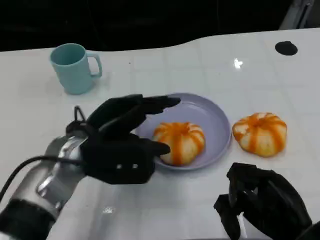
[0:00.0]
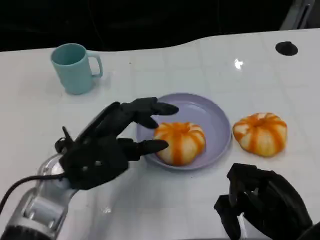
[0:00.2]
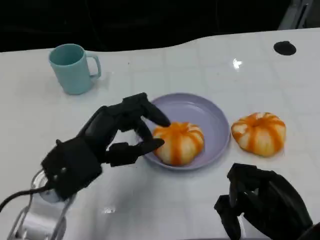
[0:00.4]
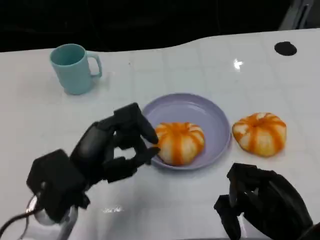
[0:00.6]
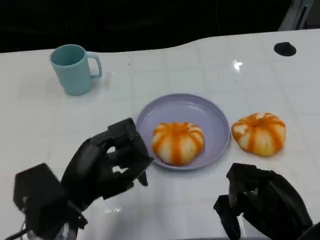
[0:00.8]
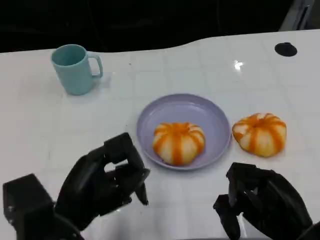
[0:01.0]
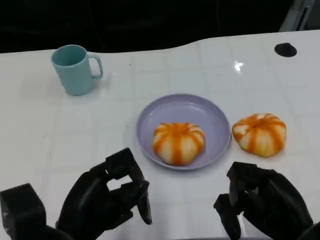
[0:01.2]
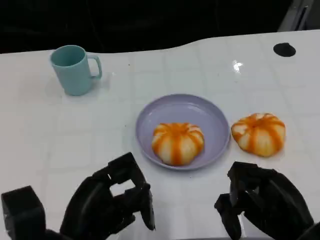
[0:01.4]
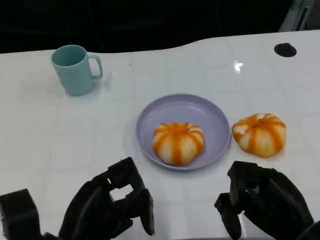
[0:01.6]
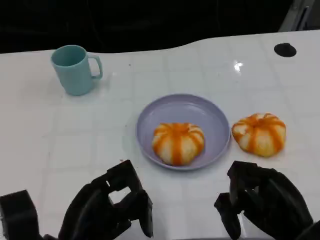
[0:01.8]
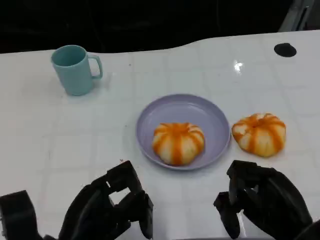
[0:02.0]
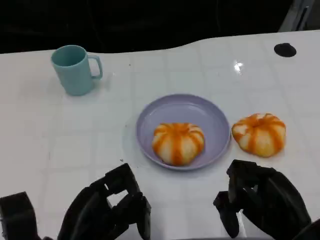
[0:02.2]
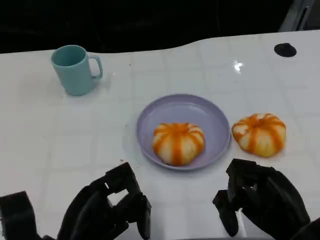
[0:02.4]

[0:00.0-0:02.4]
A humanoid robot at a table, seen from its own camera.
Task of the whole recording: Grasp the bread from the table and place it into the plate.
0:00.0 to 0:01.2: The left hand travels backward by about 10 cm.
0:01.2 to 0:02.4: The hands stay close to where they were, moving slightly.

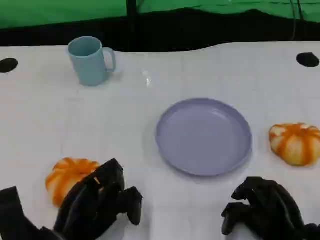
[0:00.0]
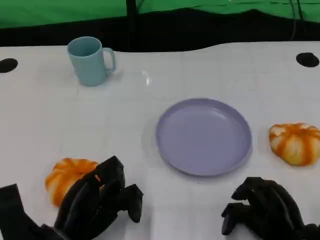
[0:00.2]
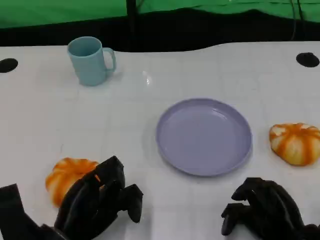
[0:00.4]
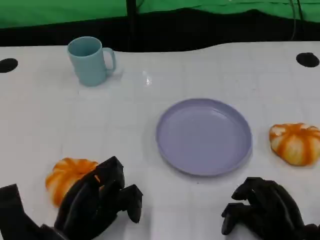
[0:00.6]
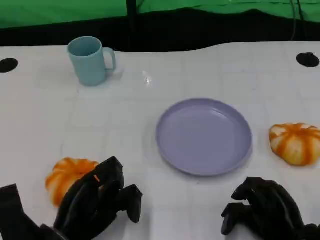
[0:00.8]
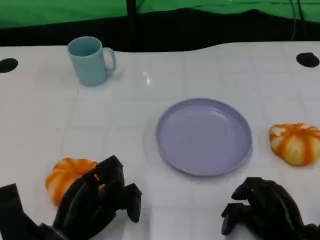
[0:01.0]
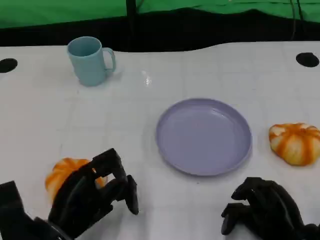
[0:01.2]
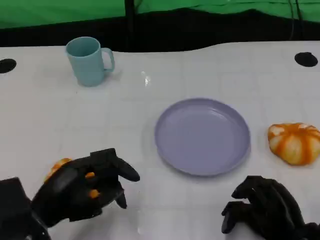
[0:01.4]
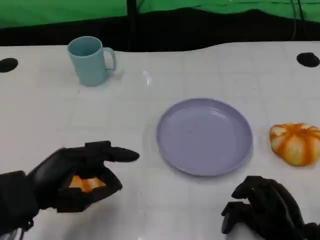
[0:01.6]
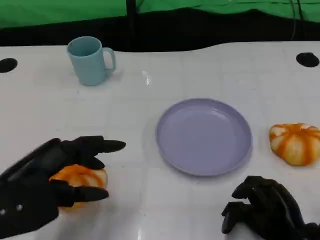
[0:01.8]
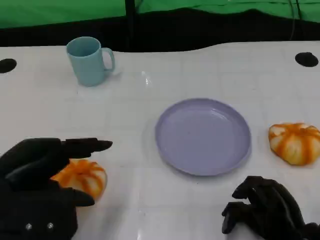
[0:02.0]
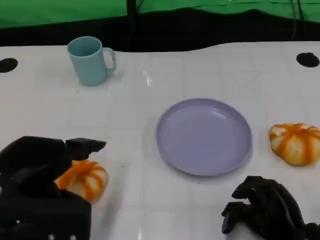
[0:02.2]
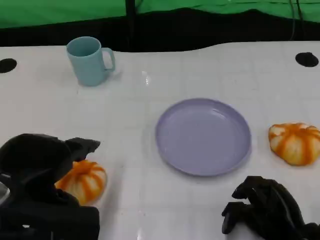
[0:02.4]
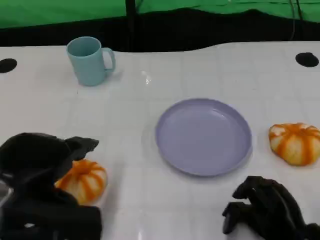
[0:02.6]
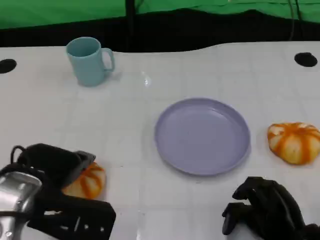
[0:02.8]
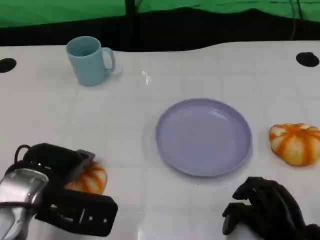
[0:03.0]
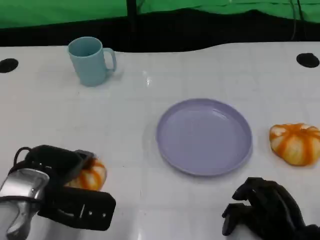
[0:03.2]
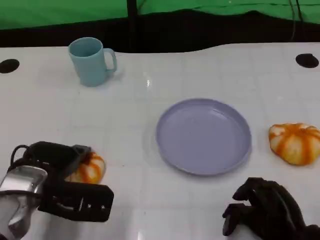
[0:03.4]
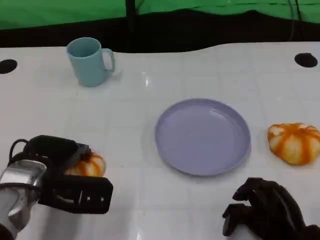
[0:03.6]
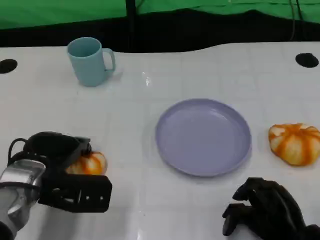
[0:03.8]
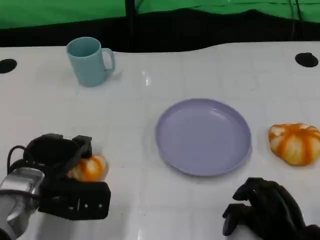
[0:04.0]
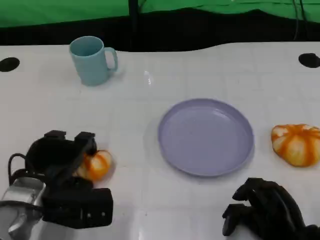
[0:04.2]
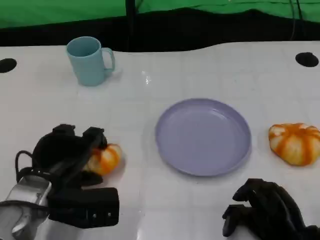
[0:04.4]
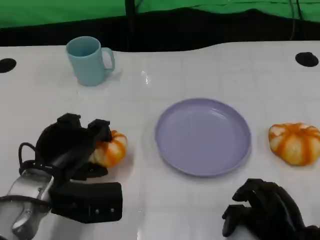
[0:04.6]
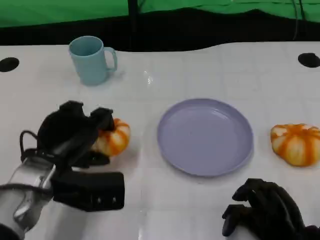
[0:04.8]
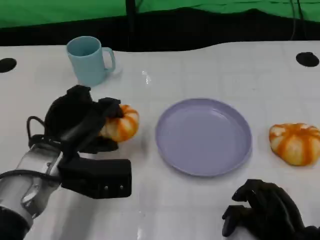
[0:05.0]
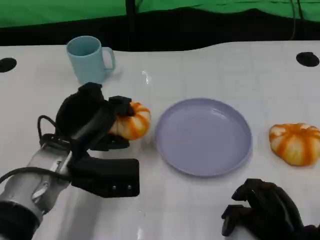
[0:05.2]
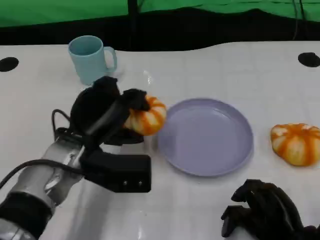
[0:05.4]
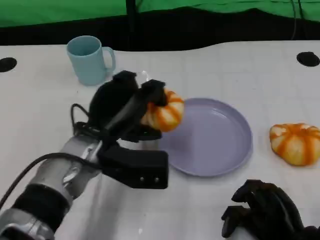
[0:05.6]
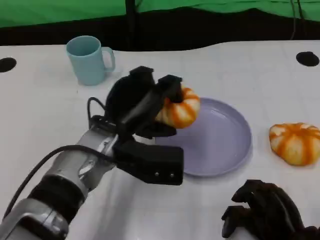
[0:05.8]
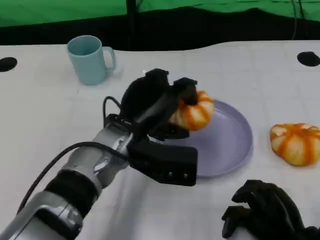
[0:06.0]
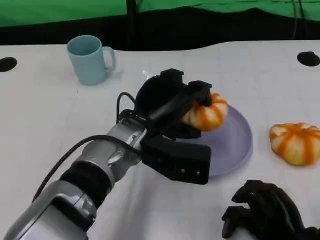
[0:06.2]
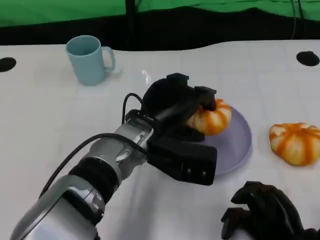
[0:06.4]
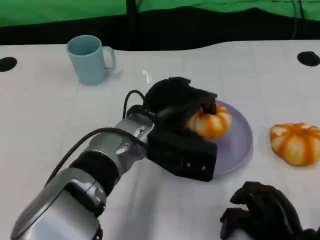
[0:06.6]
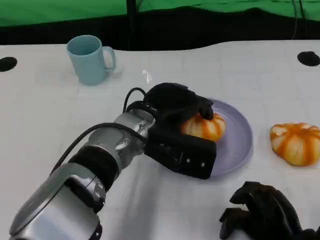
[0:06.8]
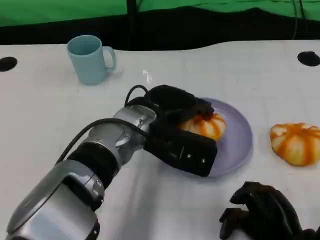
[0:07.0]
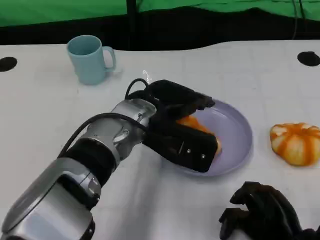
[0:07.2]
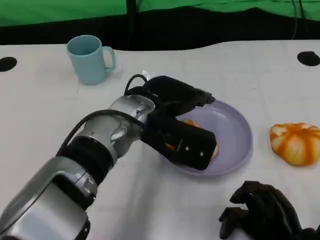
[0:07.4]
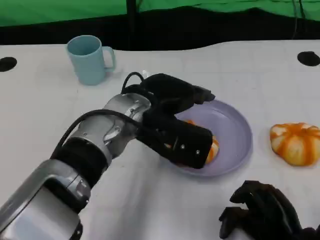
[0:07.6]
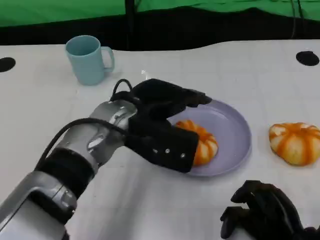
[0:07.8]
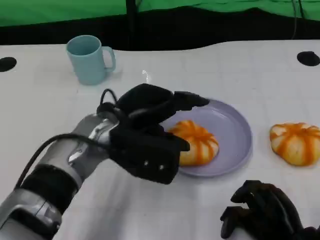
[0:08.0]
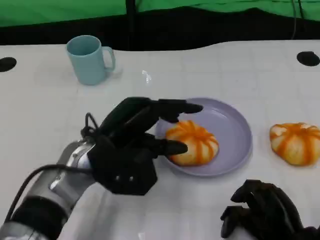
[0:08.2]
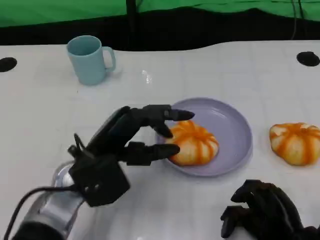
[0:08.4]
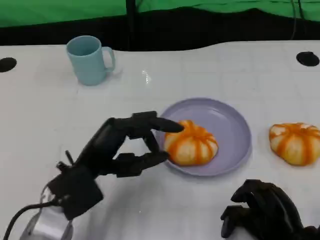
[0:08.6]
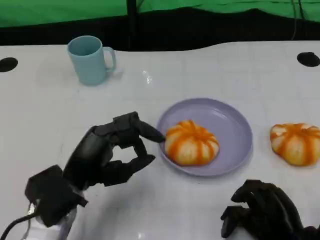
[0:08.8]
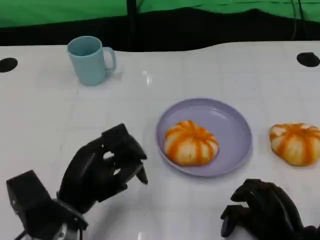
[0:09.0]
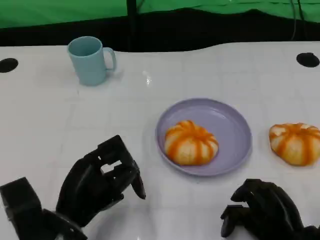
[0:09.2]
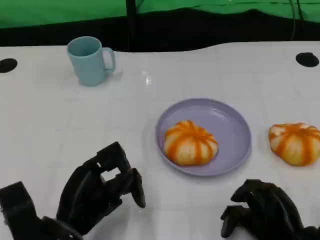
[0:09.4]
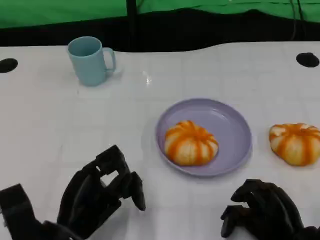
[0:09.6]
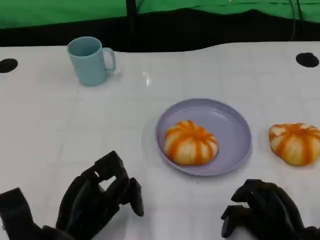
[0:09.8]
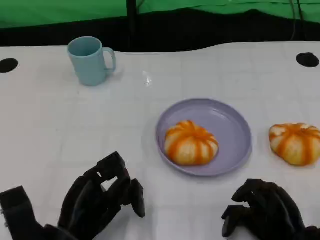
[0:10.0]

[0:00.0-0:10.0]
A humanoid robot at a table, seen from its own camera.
Task of the whole recording: Grasp the bread from the table and place it into the plate.
0:00.0 to 0:01.4: The left hand travels upward by some 5 cm.
0:02.8 to 0:04.2: The left hand travels downward by about 5 cm.
0:04.2 to 0:05.8: The left hand travels to the right and upward by about 15 cm.
0:05.8 to 0:07.2: The left hand ends up roughly 5 cm from where it was.
0:07.2 to 0:08.6: The left hand is displaced to the left, backward and downward by some 15 cm.
0:08.6 to 0:10.0: The left hand moves backward, some 5 cm.

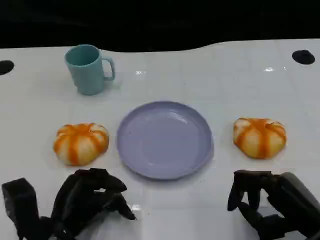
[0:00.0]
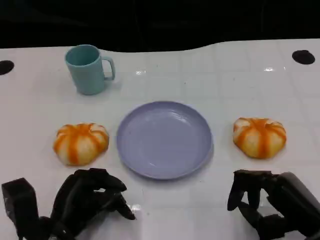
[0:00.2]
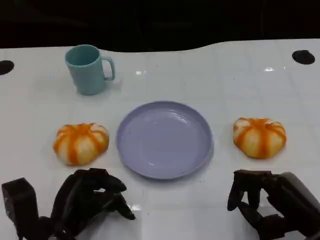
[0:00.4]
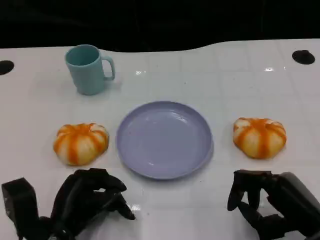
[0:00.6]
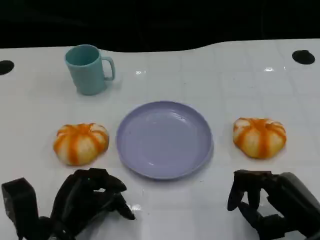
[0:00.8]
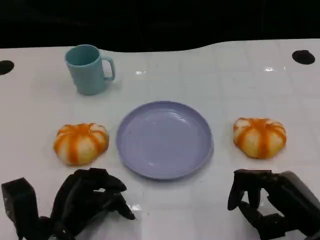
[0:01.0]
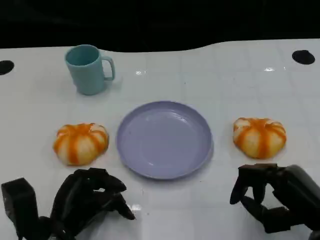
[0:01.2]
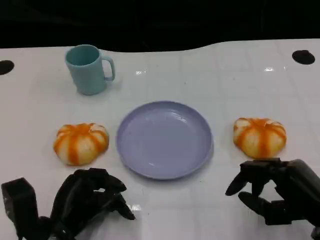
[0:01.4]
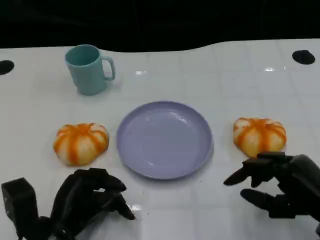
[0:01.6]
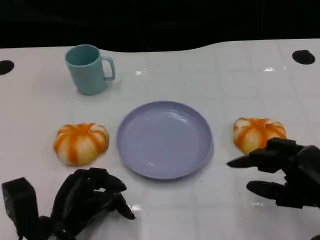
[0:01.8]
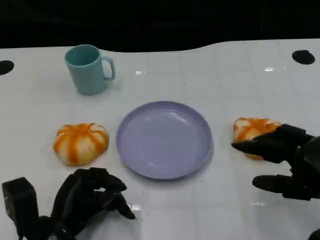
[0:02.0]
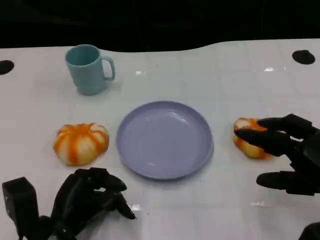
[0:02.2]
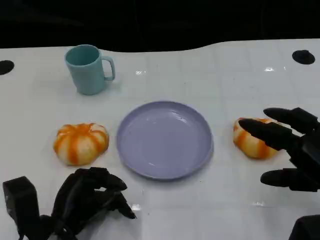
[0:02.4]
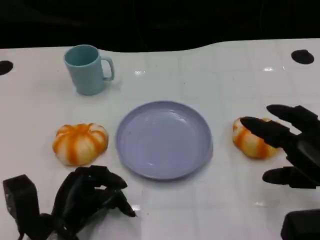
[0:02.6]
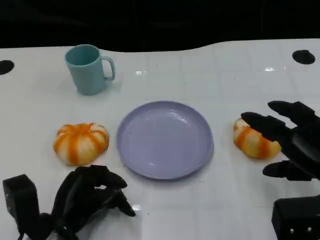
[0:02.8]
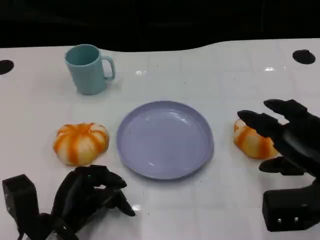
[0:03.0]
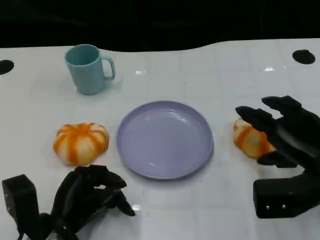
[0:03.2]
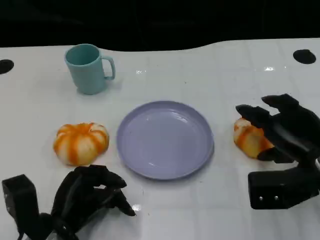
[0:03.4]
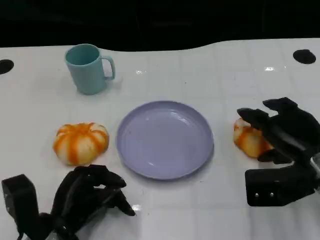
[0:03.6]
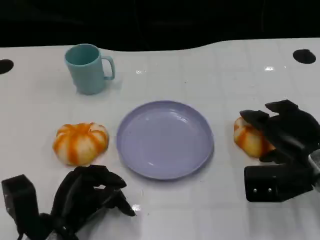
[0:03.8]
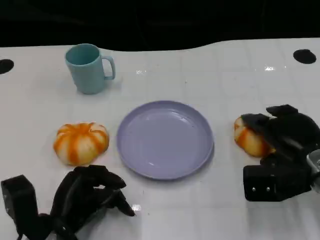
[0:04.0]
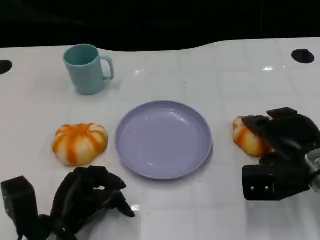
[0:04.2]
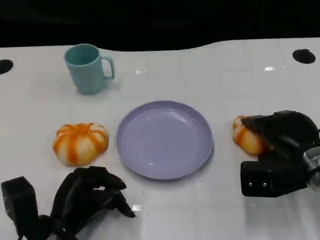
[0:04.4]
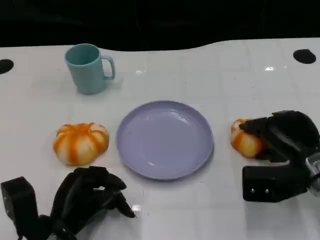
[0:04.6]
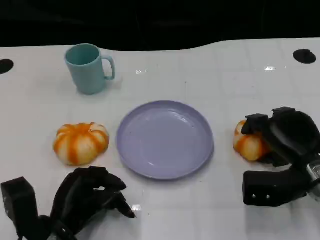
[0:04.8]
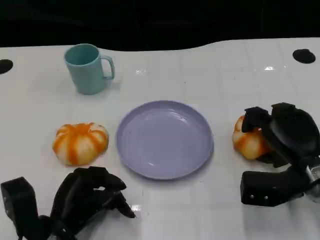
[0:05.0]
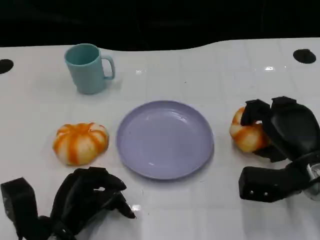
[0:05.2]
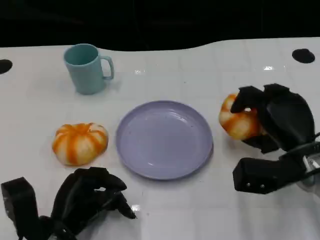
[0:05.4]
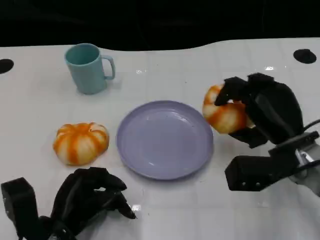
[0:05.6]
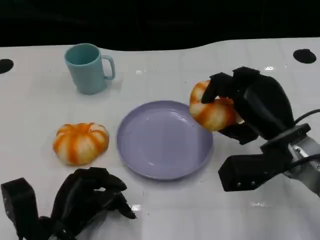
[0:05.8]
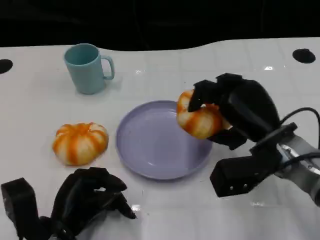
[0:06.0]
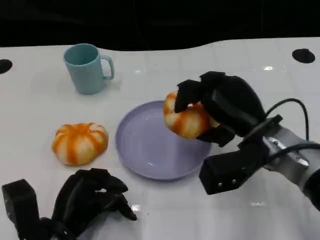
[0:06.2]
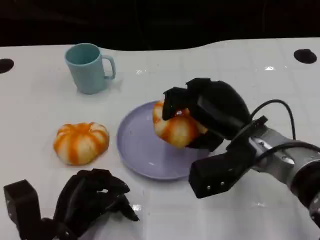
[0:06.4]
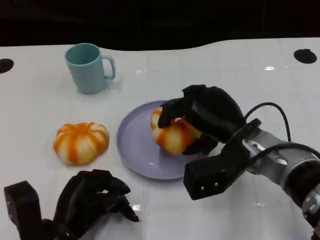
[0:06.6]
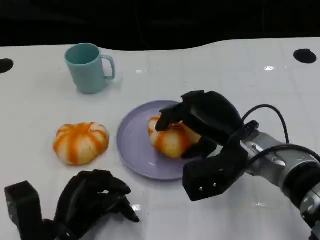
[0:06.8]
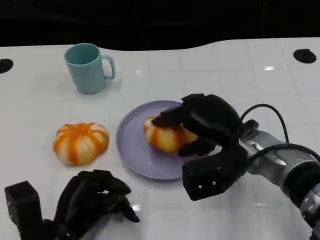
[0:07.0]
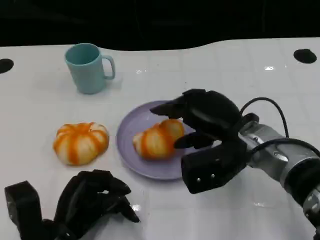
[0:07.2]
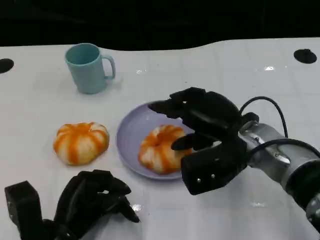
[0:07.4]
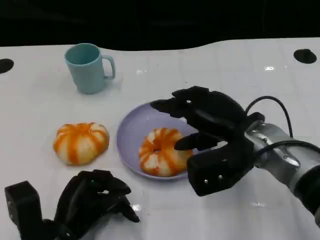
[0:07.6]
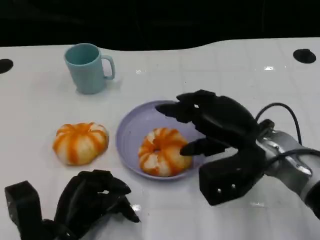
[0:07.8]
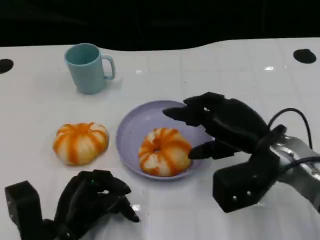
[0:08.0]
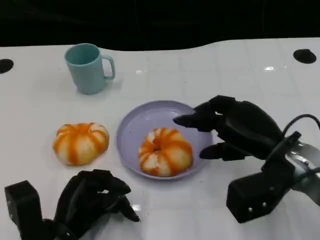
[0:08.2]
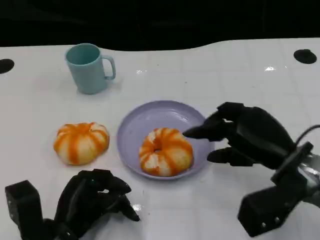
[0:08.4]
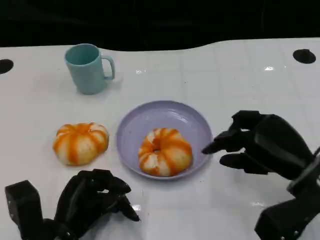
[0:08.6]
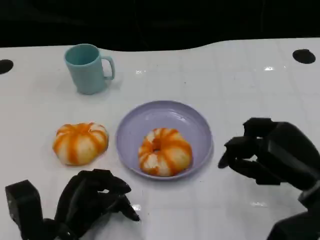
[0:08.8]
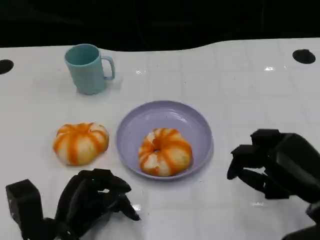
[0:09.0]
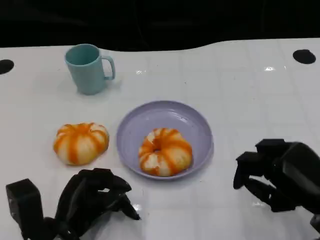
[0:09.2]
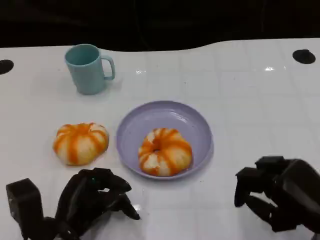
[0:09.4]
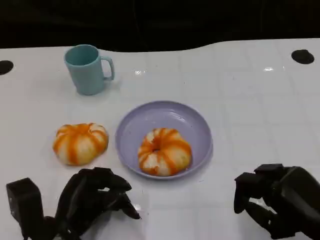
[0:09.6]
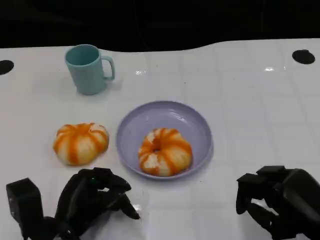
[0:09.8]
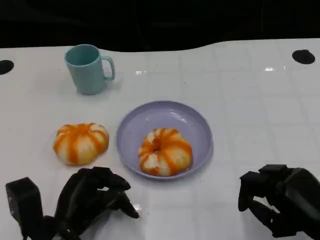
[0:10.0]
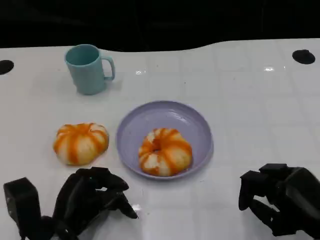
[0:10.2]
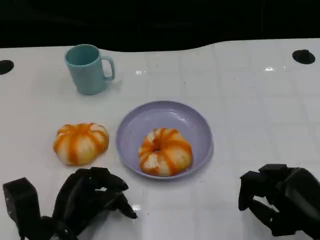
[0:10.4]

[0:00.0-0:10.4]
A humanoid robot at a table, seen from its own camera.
Task of the whole recording: Grasp the bread from the table and place it into the plate.
0:00.0 to 0:01.4: The hands move only a little.
0:01.4 to 0:03.0: The right hand is displaced forward by roughly 5 cm.
0:03.0 to 0:04.4: The right hand travels forward by some 5 cm.
0:04.4 to 0:06.0: The right hand travels to the left by about 5 cm.
0:07.4 to 0:09.0: The right hand moves to the right and backward, some 15 cm.
0:09.0 to 0:10.4: The hands move only a little.
